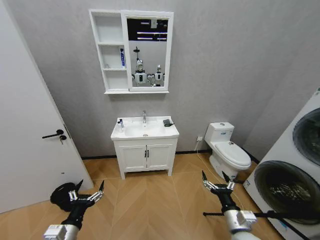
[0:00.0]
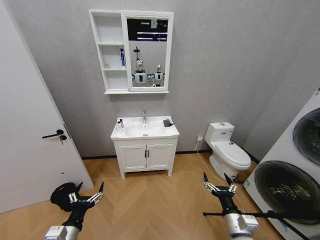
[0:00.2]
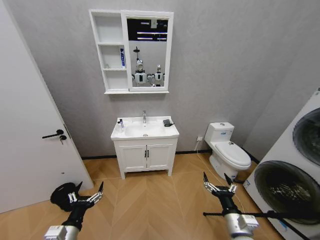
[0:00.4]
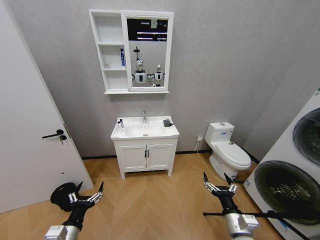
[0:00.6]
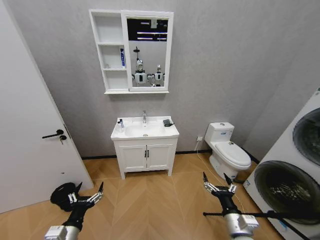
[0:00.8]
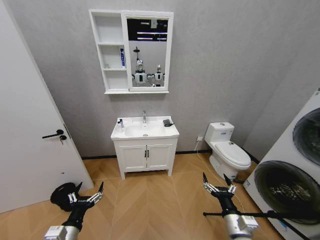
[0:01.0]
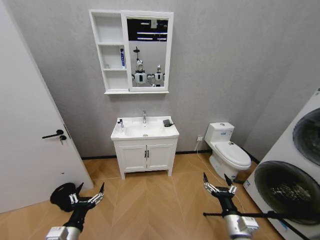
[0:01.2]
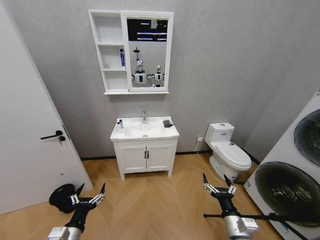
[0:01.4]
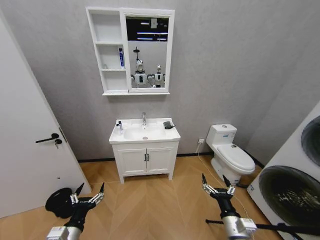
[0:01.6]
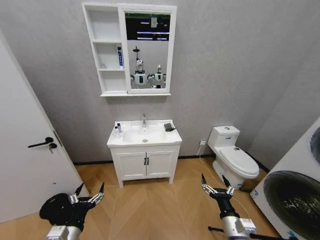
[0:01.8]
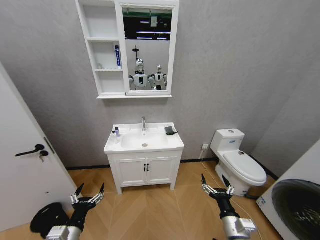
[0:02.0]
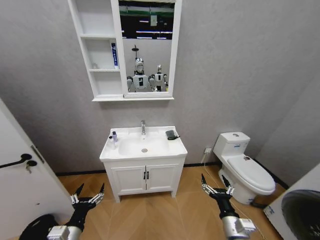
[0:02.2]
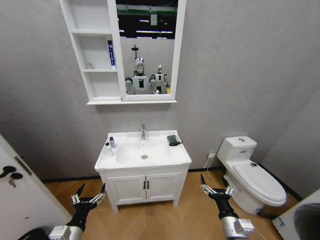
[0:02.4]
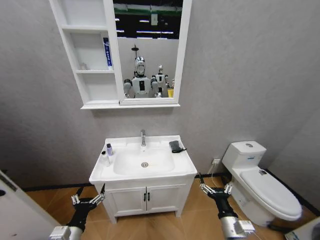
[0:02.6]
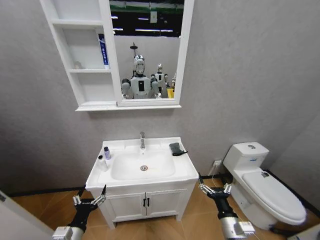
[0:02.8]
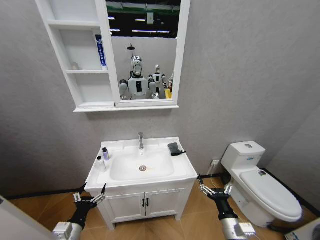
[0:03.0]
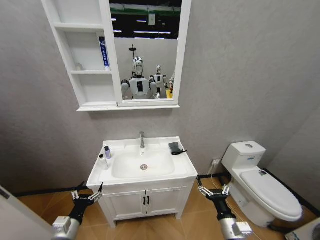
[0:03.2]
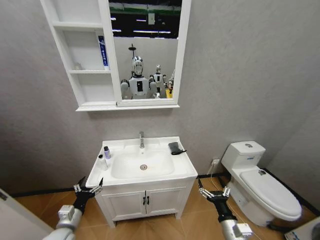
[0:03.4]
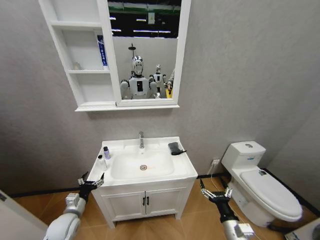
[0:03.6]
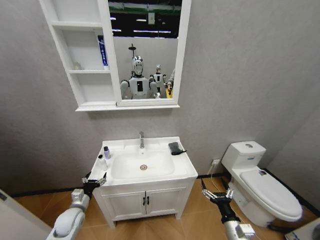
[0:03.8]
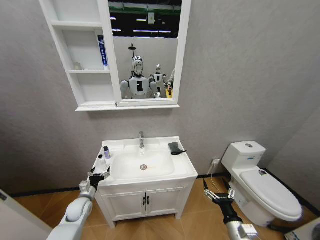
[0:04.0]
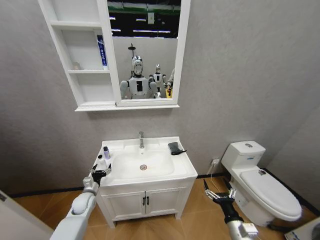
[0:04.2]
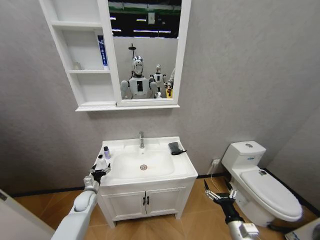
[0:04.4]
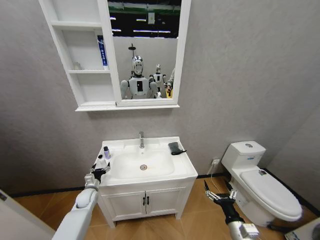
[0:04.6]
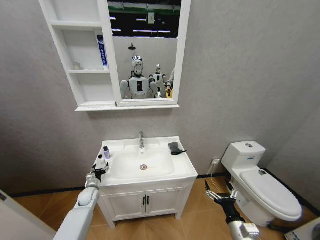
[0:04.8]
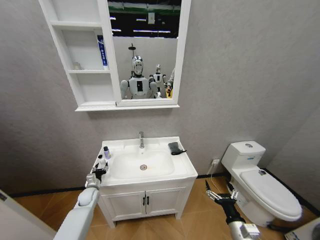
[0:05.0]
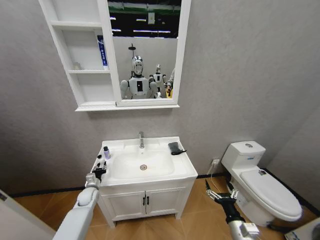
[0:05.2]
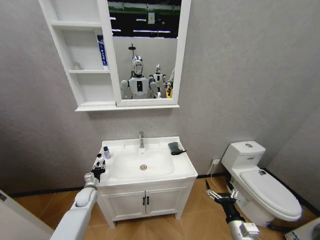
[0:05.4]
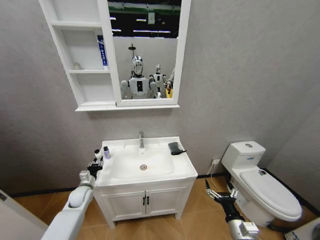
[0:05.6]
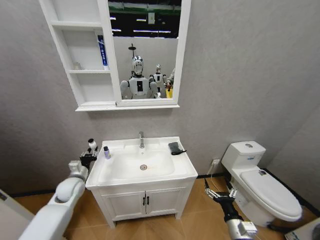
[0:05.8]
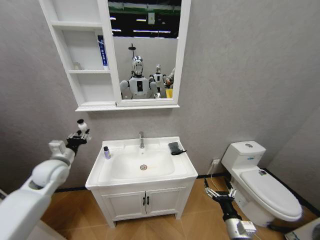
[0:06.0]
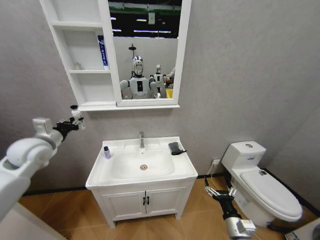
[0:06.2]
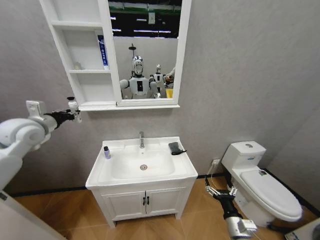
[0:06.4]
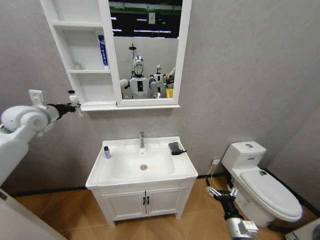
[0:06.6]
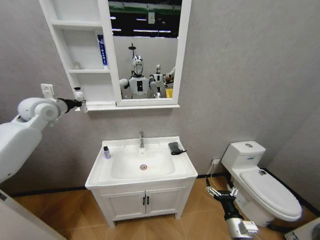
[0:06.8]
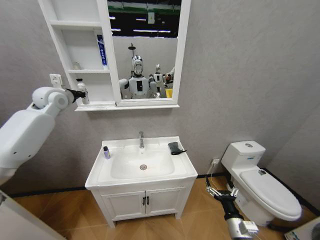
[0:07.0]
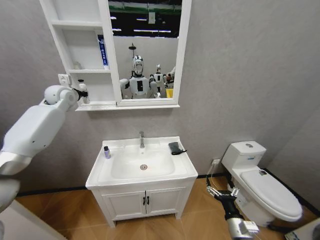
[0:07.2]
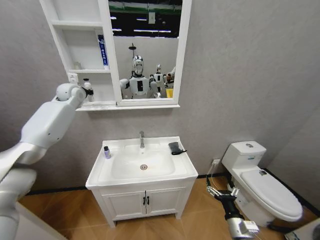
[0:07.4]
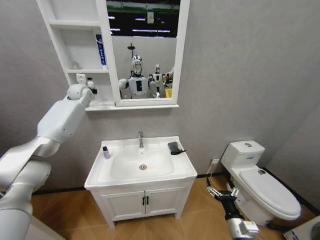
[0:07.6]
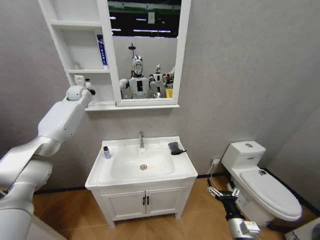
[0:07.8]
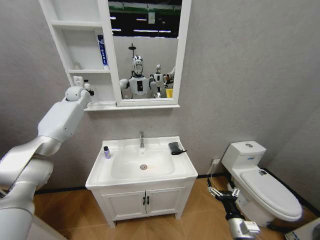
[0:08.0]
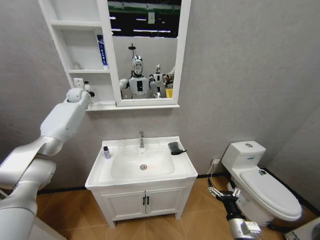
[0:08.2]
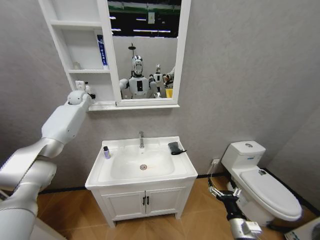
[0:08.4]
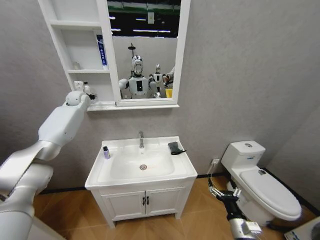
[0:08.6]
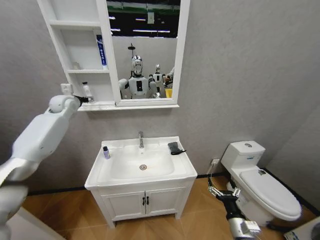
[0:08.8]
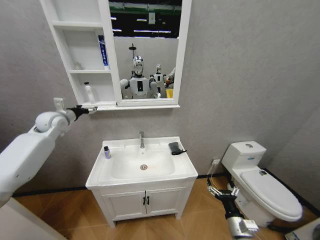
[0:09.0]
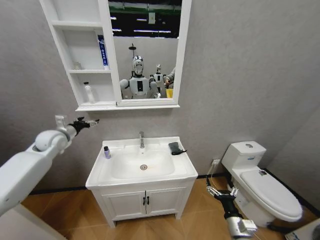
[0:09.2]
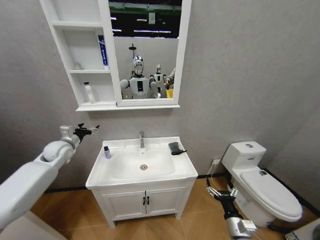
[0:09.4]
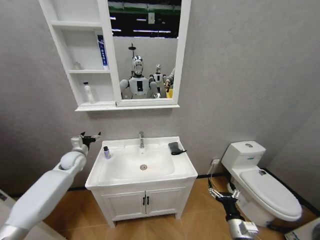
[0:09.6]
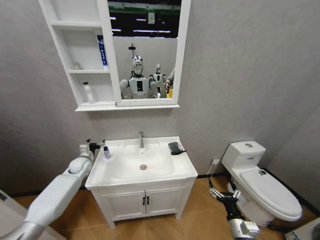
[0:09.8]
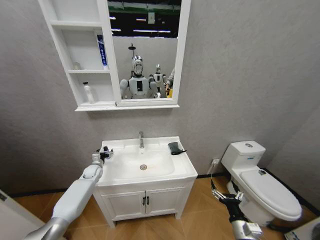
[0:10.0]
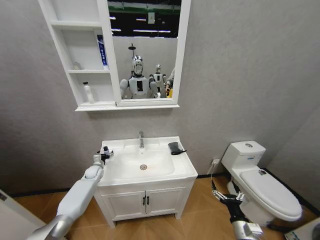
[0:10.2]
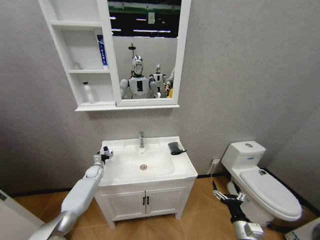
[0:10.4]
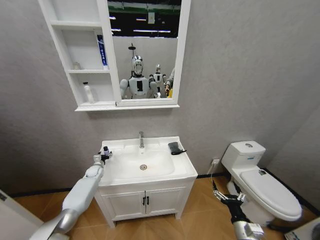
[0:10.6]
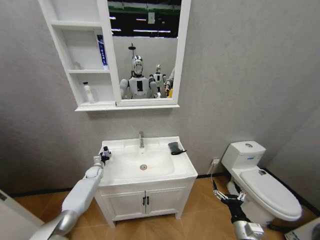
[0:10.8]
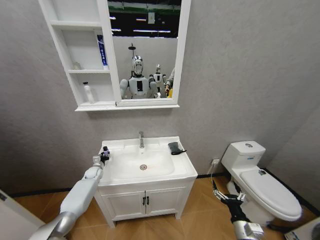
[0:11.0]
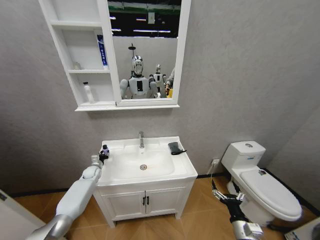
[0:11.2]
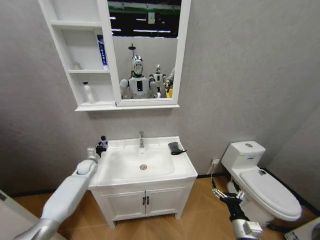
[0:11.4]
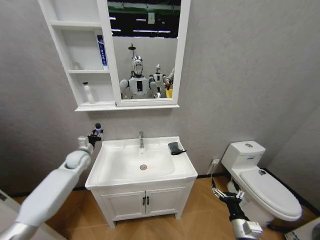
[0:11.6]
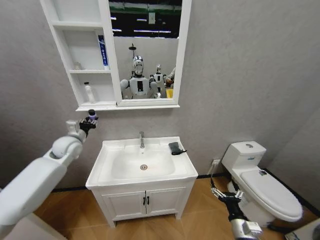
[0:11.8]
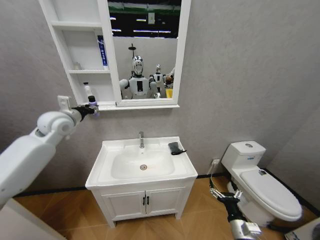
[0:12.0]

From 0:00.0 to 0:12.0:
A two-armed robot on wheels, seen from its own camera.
Task of the whole recording: Move facial cleanser and shampoo from washbasin to cabinet, then wipe washbasin with towel.
From 0:03.0 to 0:04.4: The left gripper shifts roughly 25 cm forward and downward.
From 0:04.4 to 0:06.0: The left gripper moves upward, some 25 cm, and closes.
From 0:06.0 to 0:07.6: The left gripper shifts roughly 35 cm forward and upward.
From 0:07.6 to 0:09.0: The left gripper travels backward, to the left and downward by about 15 cm, and opens its fingers.
From 0:09.0 to 0:10.4: The left gripper moves downward, about 40 cm.
From 0:10.4 to 0:12.0: The left gripper travels upward by roughly 40 cm, and closes up.

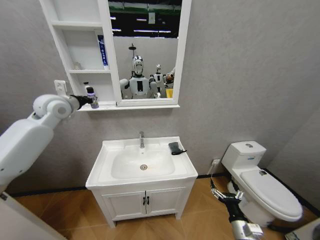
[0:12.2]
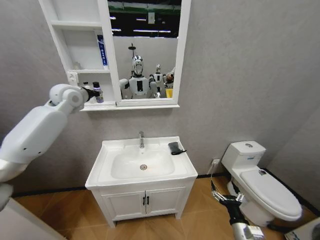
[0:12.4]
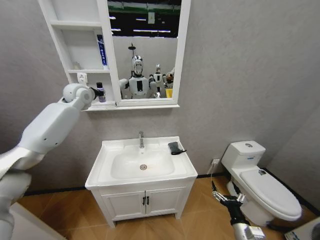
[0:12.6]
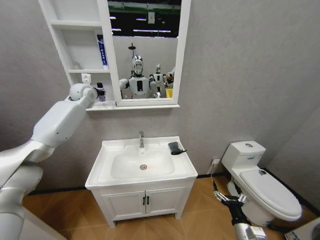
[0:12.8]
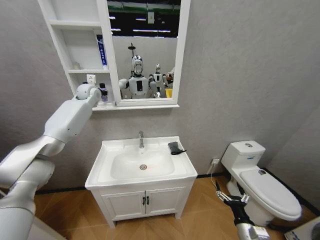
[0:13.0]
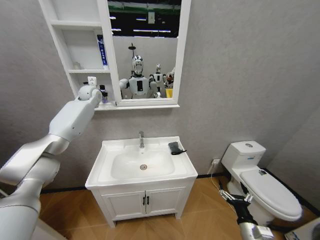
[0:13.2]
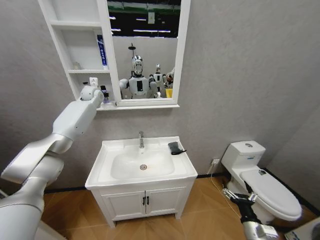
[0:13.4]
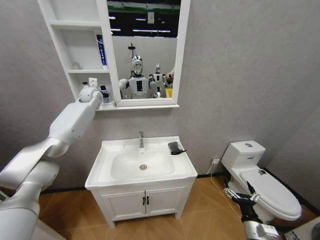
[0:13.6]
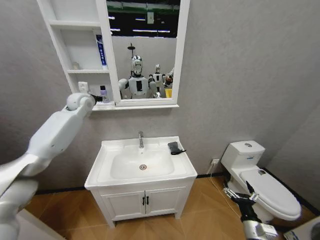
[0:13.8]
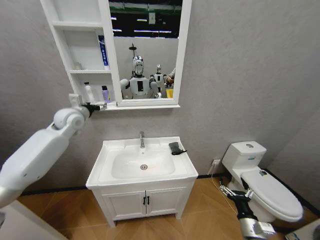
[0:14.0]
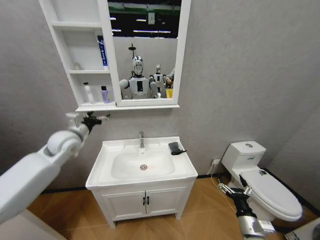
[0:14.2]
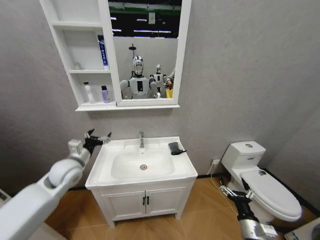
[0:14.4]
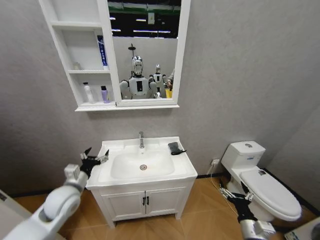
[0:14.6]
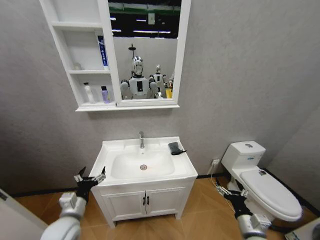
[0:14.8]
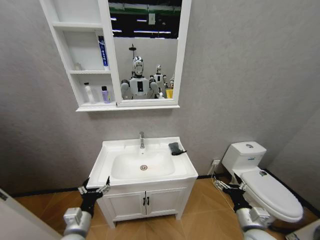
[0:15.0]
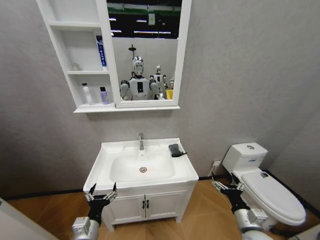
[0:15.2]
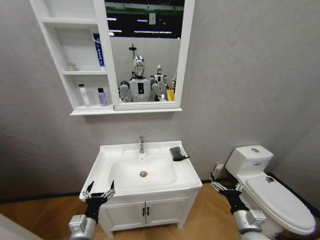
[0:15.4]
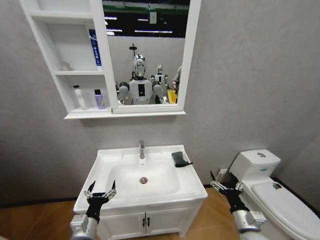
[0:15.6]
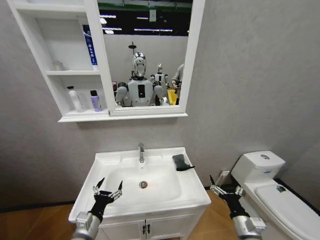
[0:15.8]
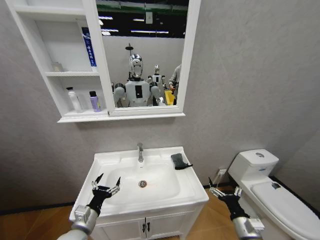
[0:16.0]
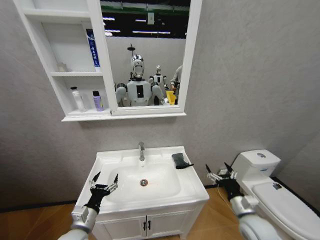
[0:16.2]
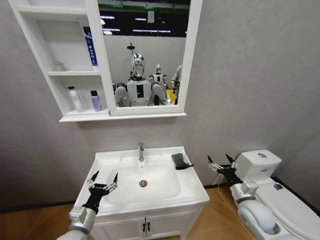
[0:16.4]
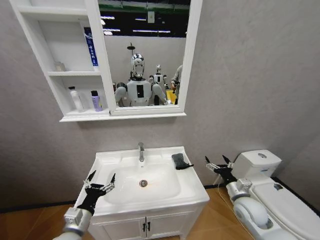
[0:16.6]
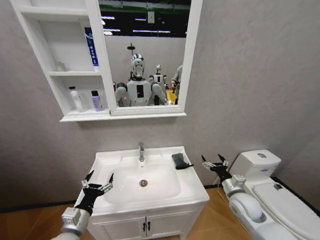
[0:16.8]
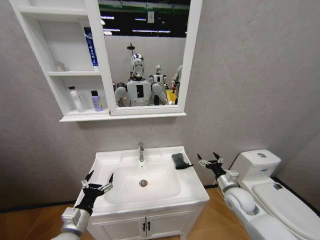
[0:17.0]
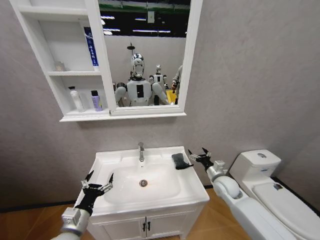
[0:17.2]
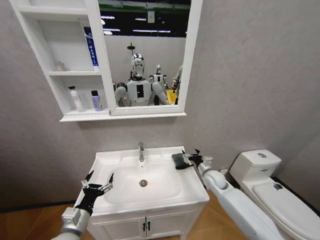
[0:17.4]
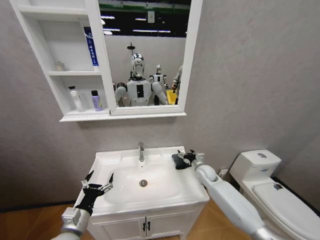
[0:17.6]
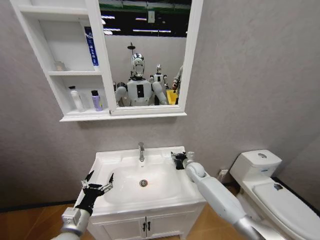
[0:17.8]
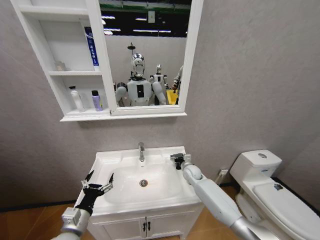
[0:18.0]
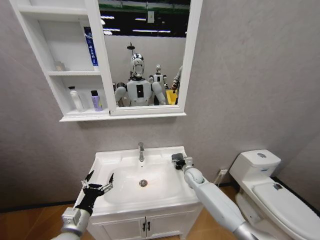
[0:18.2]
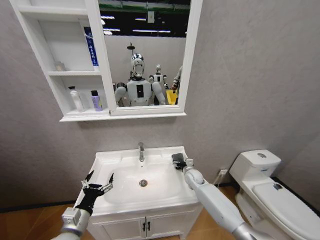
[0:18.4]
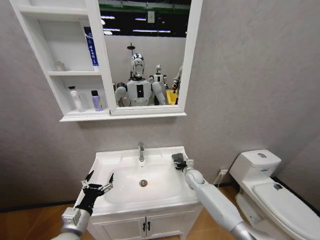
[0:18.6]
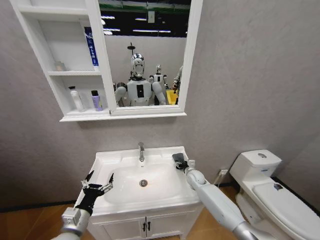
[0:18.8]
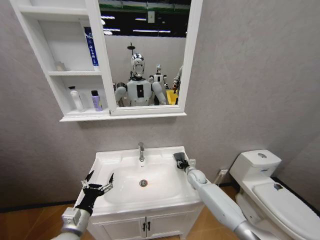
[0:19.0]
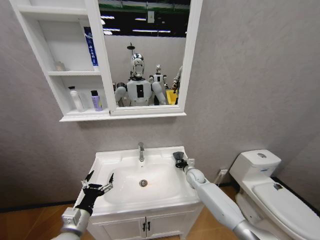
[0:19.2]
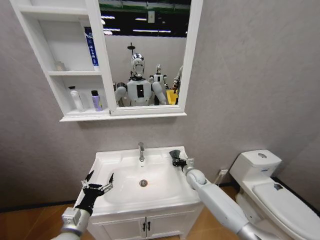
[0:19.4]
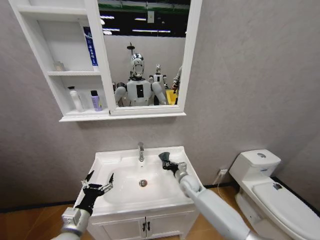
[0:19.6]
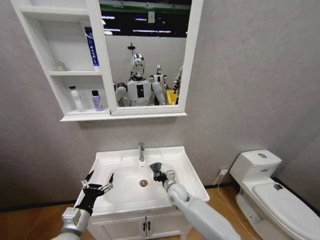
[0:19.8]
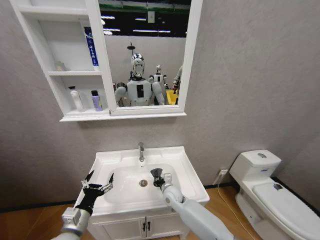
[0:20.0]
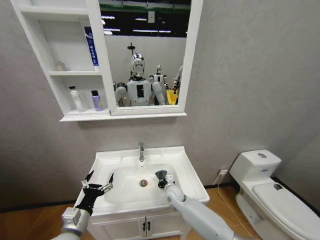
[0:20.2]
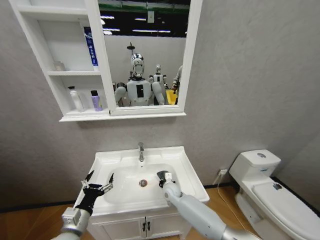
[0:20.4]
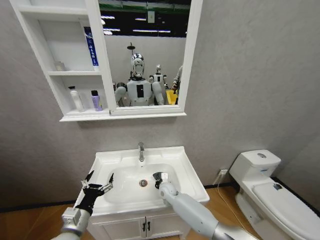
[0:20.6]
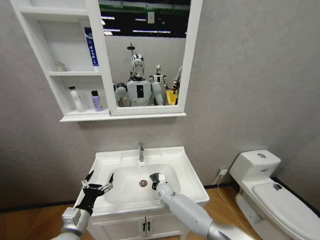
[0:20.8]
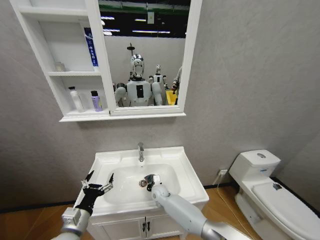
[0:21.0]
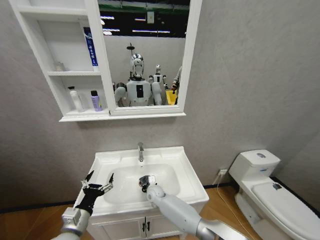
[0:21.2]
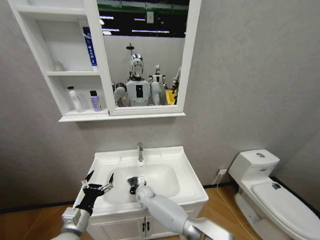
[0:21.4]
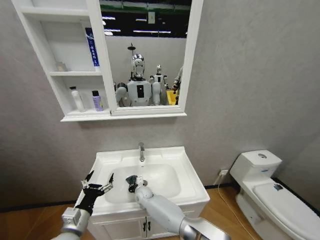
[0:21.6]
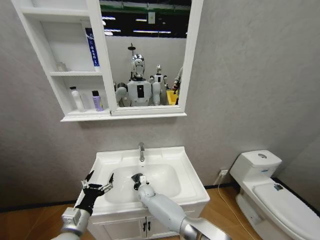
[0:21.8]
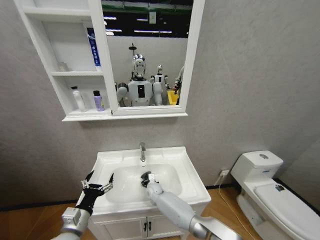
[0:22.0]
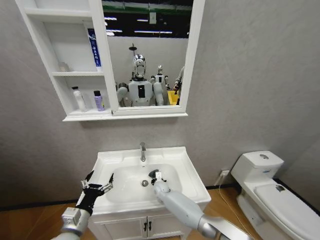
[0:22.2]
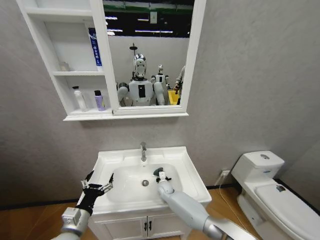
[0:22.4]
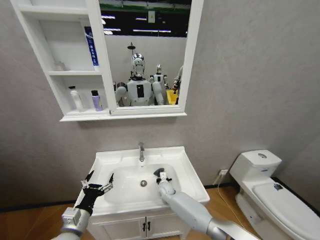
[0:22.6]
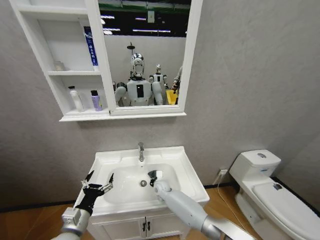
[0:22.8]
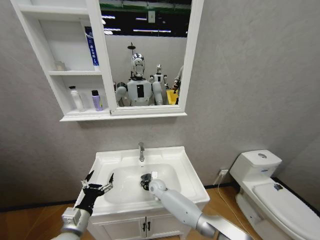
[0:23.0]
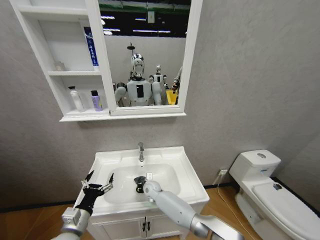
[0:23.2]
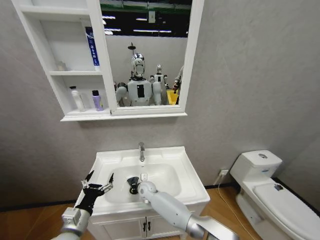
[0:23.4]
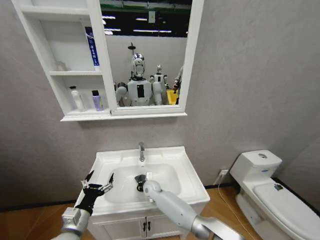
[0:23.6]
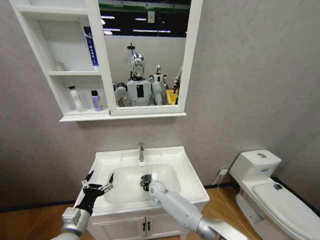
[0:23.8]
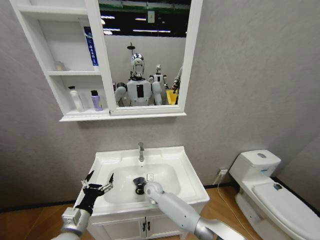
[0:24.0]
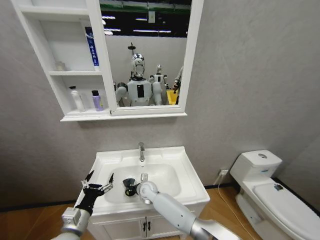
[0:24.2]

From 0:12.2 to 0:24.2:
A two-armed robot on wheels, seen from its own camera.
Task of the whole recording: Move facial cleanser and shampoo from washbasin to cabinet, then wipe washbasin with towel.
From 0:12.2 to 0:13.8: The left gripper is displaced forward by roughly 10 cm, and opens its fingers.
From 0:13.8 to 0:15.2: The left gripper goes about 50 cm backward and downward. The right gripper heads upward, covering roughly 5 cm.
From 0:15.2 to 0:16.6: The right gripper is displaced forward by approximately 10 cm. The left gripper ends up about 5 cm from where it was.
From 0:16.6 to 0:18.2: The right gripper travels forward and to the left by some 25 cm.
From 0:18.2 to 0:19.8: The right gripper heads to the left and backward, covering approximately 15 cm, and closes.
From 0:19.8 to 0:21.2: The right gripper goes some 15 cm to the left and downward.
From 0:21.2 to 0:22.6: The right gripper is displaced to the right by roughly 5 cm.
From 0:22.6 to 0:24.2: The right gripper goes left and right, about 10 cm each way, reversing 2 times.
